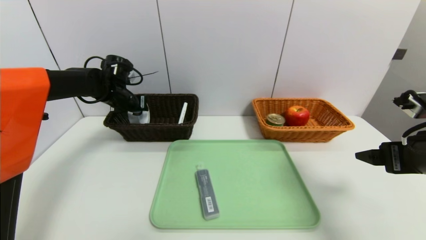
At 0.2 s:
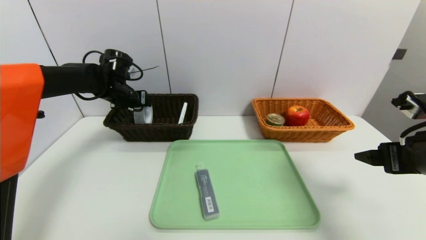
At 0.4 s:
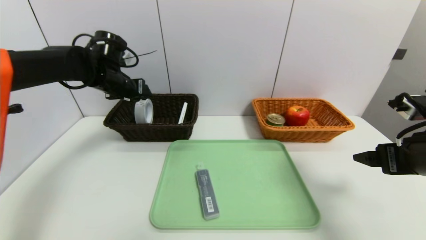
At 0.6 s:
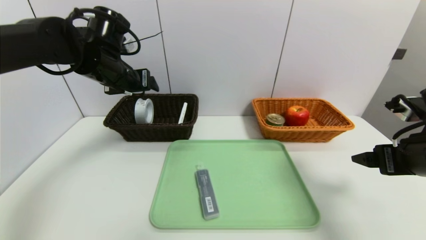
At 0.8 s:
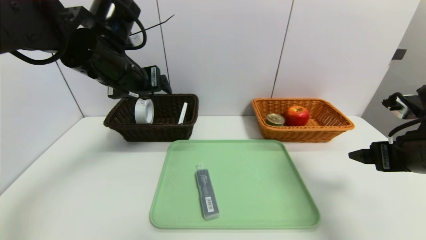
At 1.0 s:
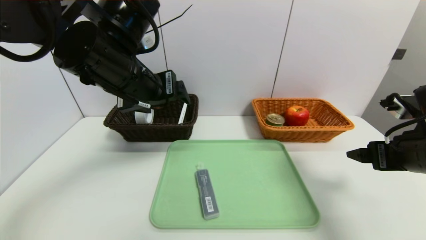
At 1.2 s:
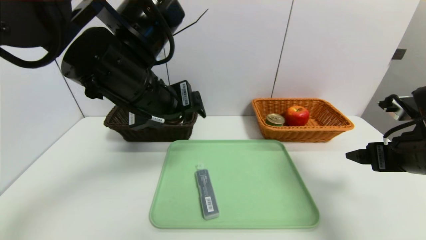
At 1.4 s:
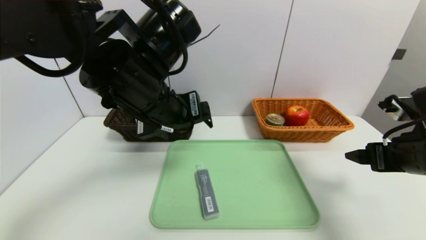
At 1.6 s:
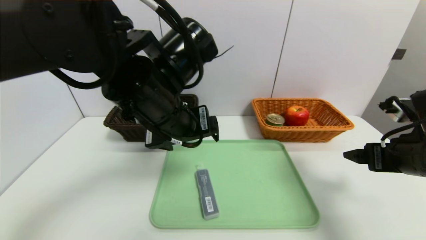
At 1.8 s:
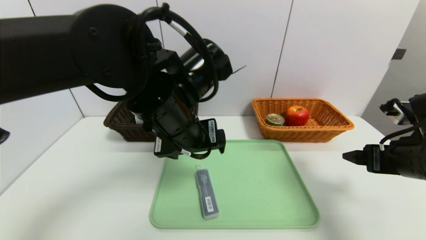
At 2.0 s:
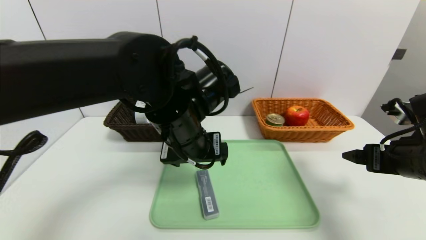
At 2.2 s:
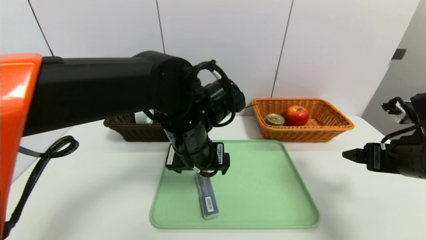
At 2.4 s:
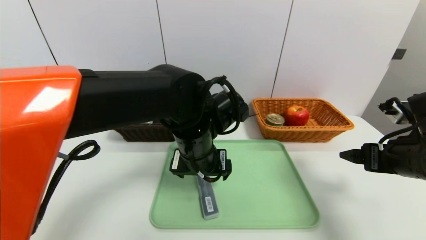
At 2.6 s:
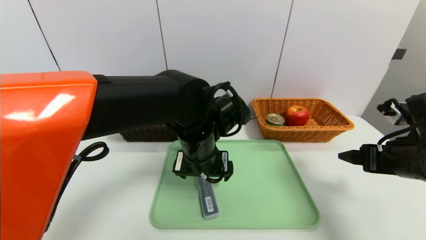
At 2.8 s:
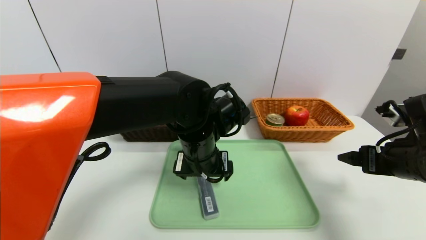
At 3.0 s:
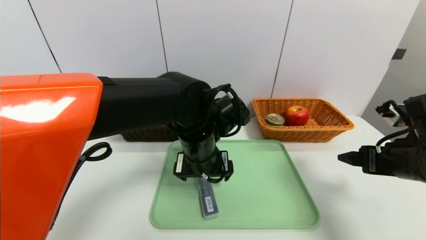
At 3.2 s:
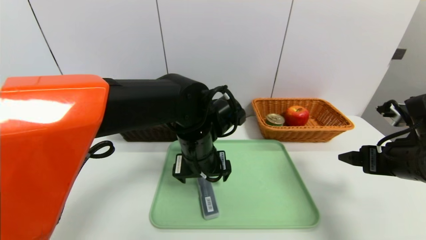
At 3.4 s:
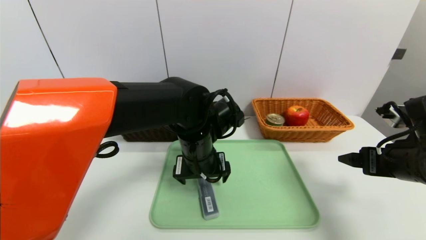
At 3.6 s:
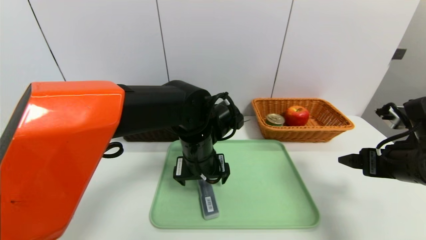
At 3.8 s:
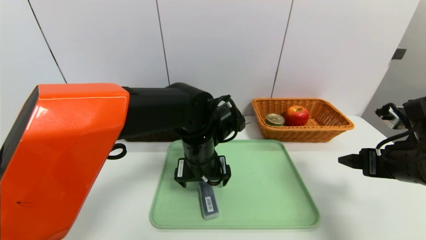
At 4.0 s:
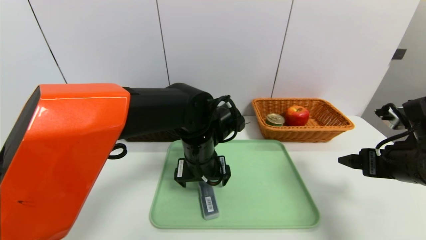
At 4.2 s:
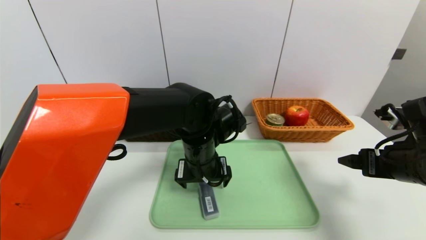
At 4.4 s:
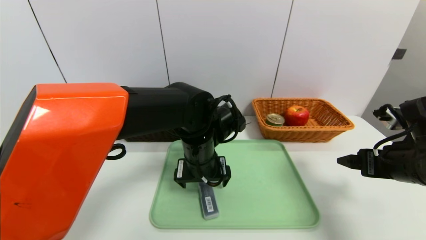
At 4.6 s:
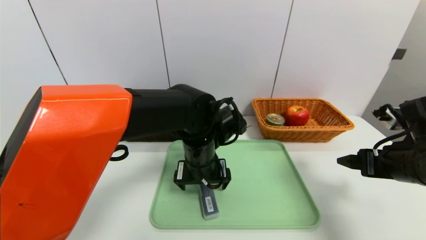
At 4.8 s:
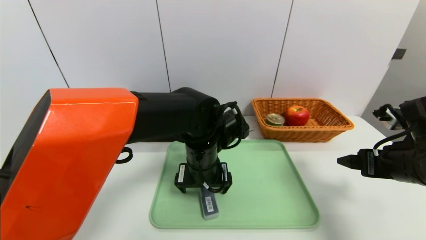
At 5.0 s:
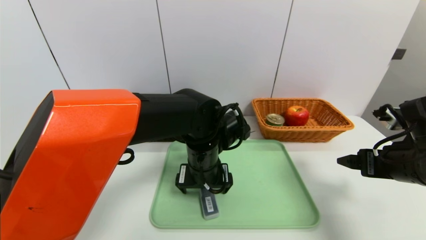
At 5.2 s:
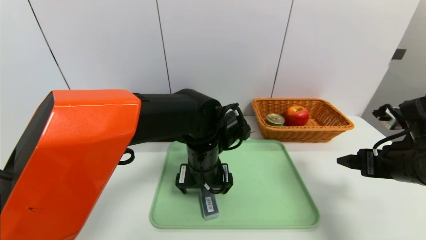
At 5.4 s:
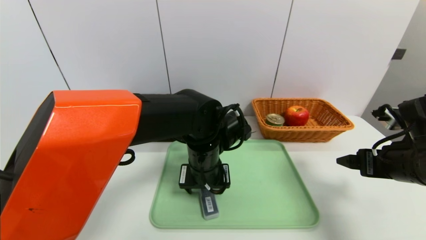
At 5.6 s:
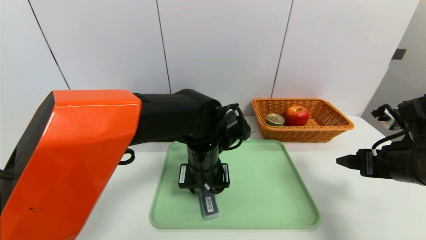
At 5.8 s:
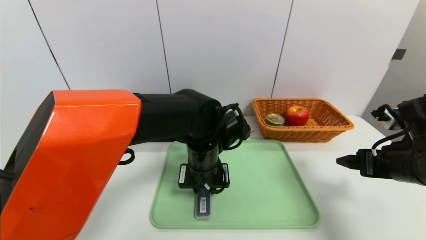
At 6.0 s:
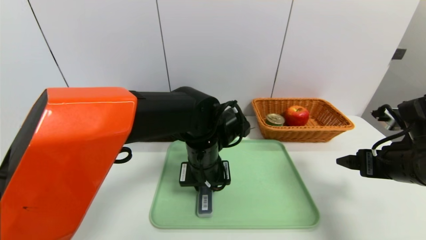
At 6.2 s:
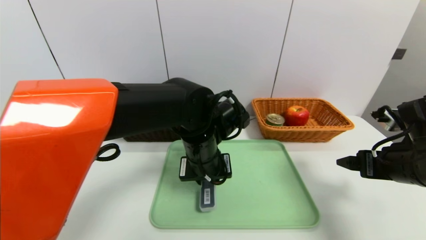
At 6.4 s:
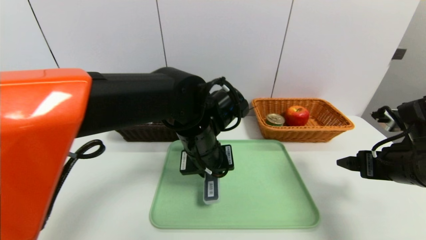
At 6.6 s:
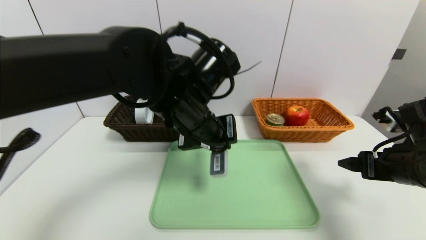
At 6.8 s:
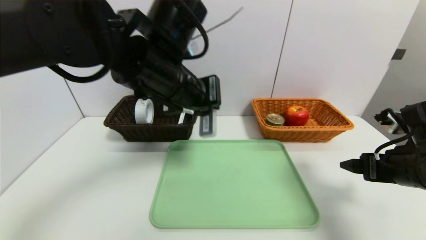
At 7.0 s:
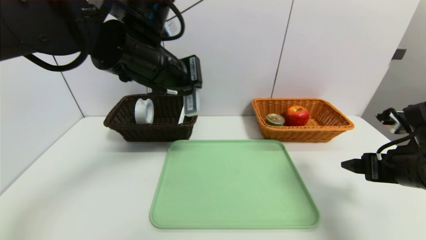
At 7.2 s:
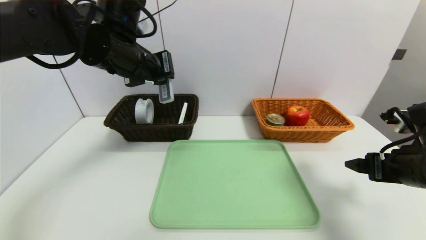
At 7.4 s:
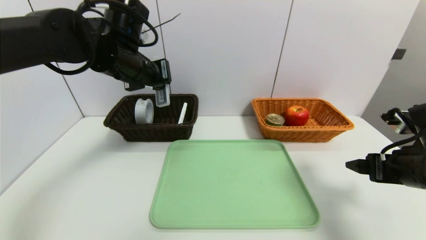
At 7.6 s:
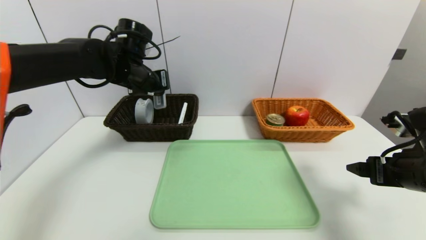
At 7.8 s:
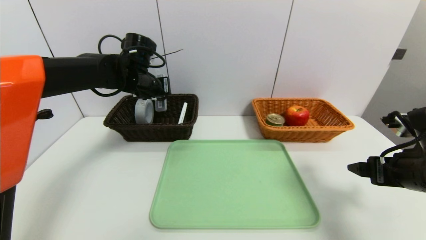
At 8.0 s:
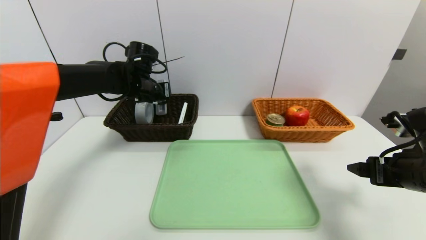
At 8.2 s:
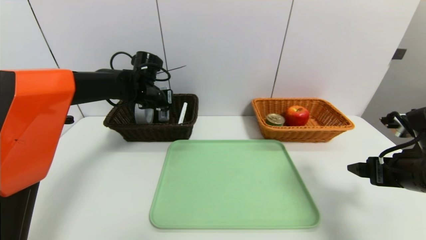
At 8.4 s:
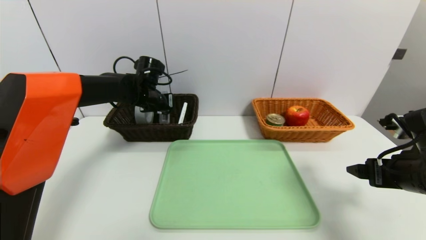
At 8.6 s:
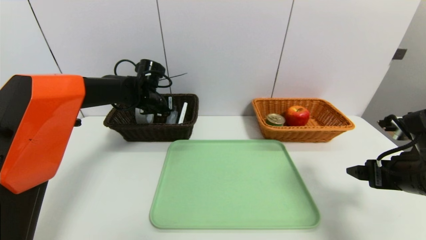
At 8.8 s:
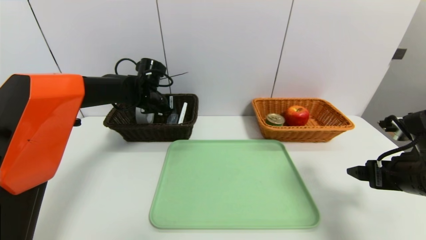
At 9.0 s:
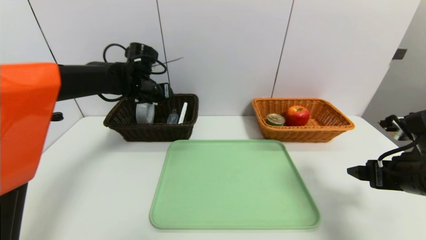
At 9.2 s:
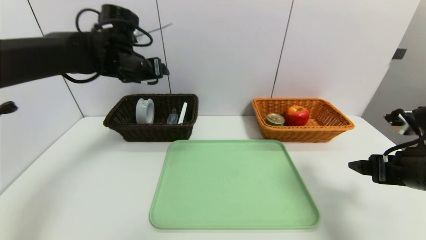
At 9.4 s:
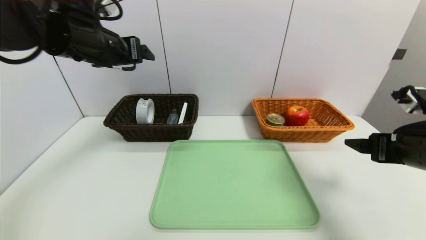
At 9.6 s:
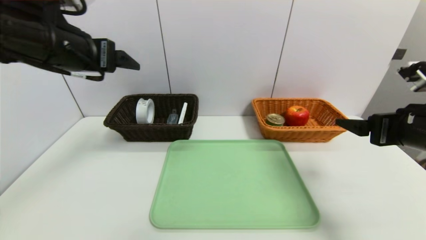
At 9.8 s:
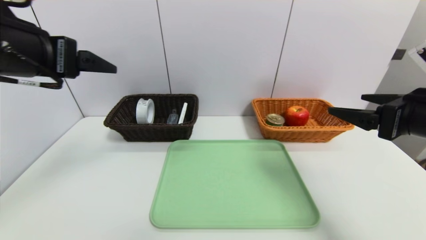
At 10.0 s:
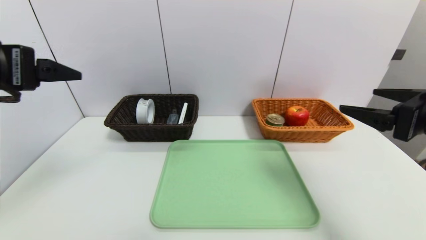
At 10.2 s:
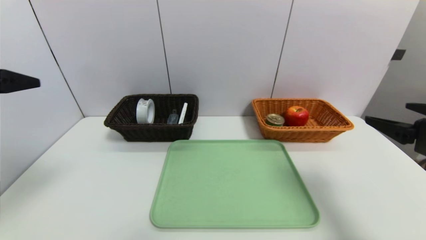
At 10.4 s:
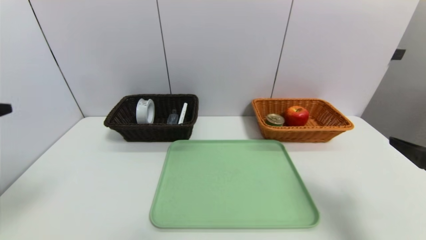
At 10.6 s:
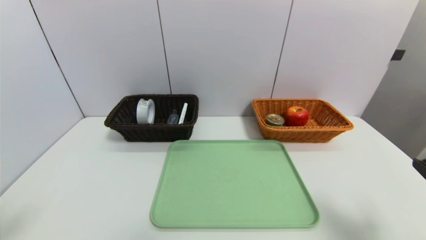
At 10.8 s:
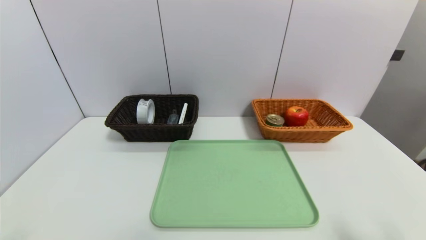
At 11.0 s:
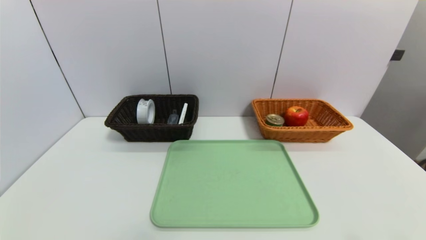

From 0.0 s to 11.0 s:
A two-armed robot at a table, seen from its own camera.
Task of the whole recording: place the food in the right basket with the right gripper, and place the non food items in the left basket with the left gripper.
Step, from 0.6 s to 9.0 s: Grasp the compass and put it in the left basket.
From 0.0 s to 1.6 s: The left gripper shifts approximately 30 cm backward, to the right and upward, and opens.
From 1.6 s to 3.2 s: The left gripper travels downward by about 10 cm.
From 3.2 s to 4.8 s: The grippers move only a little.
From 4.8 s to 6.2 s: The left gripper closes its fingers.
From 6.2 s to 7.8 s: The left gripper is displaced to the left, forward and upward by roughly 25 cm.
From 7.8 s to 9.4 s: The left gripper travels backward and upward by roughly 15 cm, and opens.
From 9.4 s to 11.0 s: The left gripper goes roughly 40 cm backward and downward. Meanwhile the right gripper goes roughly 20 cm backward and downward.

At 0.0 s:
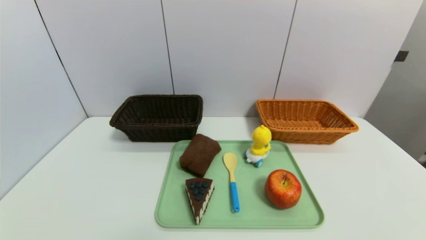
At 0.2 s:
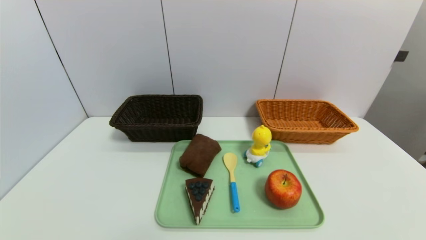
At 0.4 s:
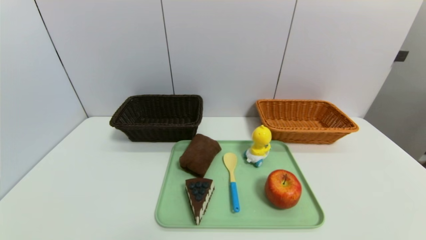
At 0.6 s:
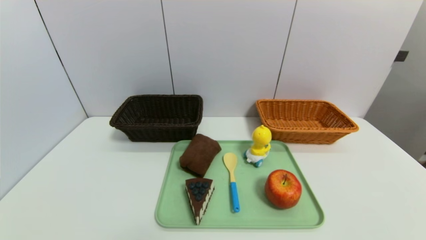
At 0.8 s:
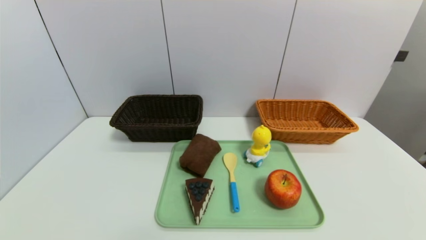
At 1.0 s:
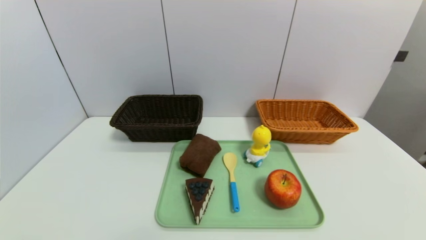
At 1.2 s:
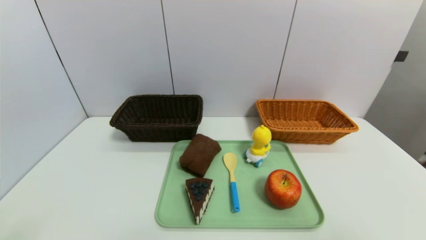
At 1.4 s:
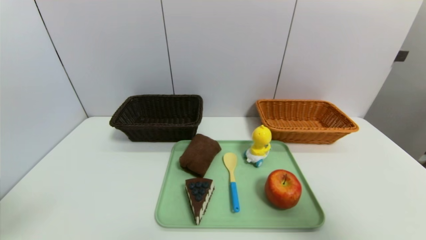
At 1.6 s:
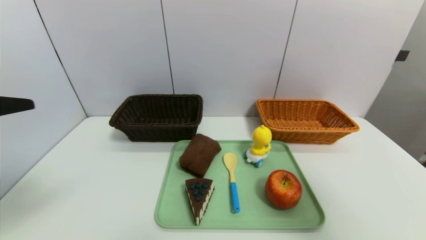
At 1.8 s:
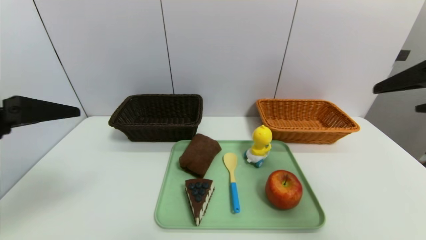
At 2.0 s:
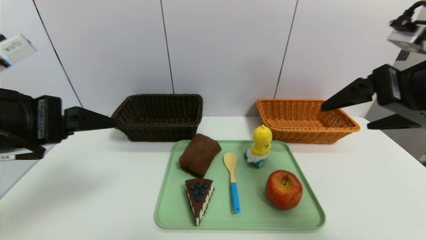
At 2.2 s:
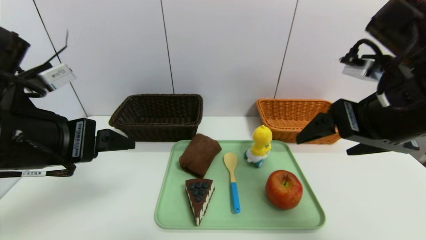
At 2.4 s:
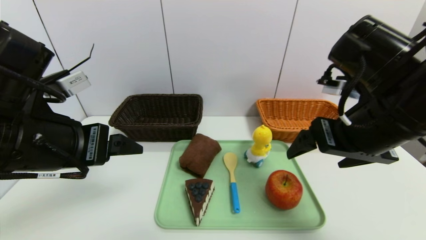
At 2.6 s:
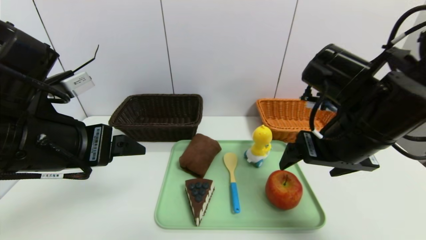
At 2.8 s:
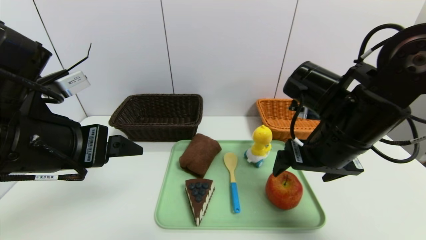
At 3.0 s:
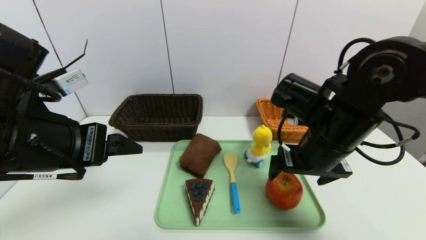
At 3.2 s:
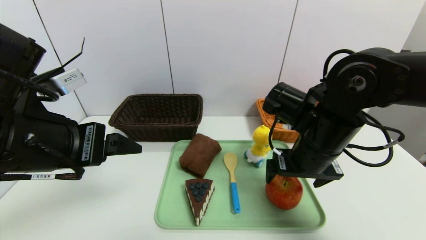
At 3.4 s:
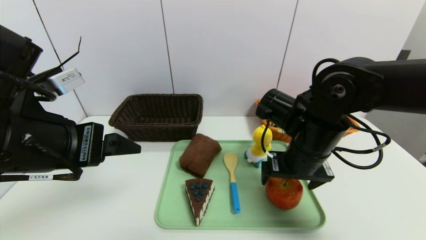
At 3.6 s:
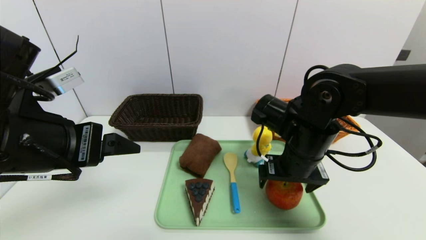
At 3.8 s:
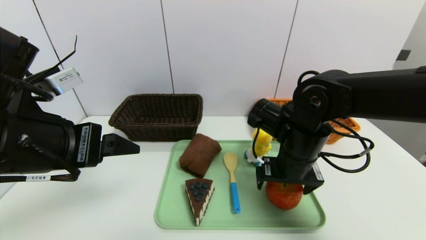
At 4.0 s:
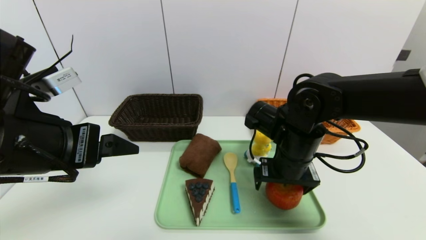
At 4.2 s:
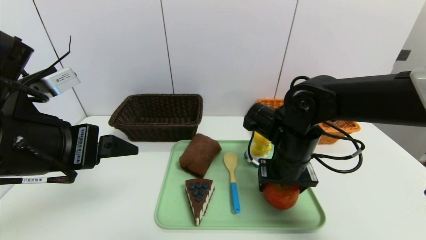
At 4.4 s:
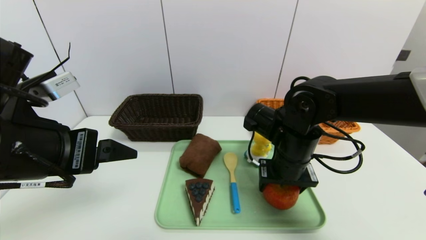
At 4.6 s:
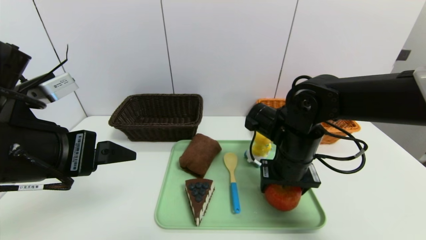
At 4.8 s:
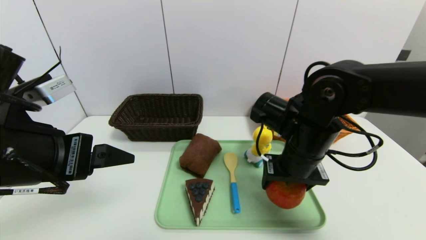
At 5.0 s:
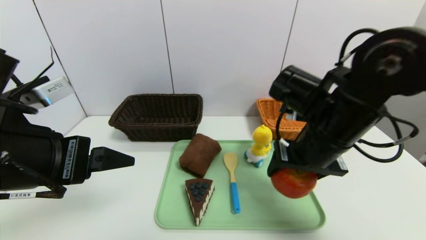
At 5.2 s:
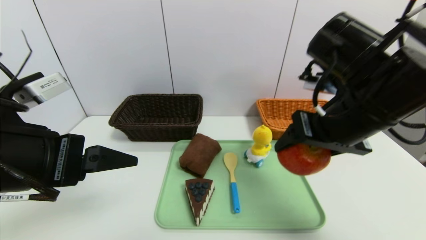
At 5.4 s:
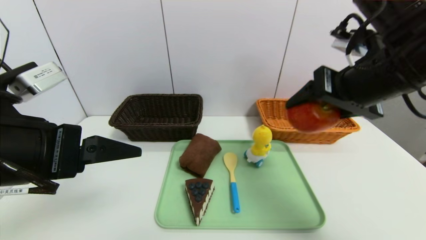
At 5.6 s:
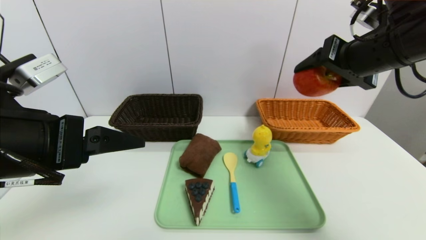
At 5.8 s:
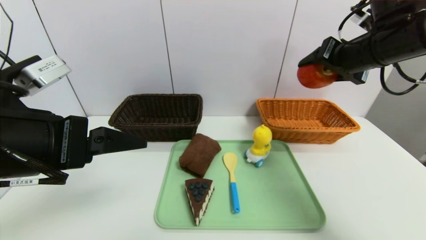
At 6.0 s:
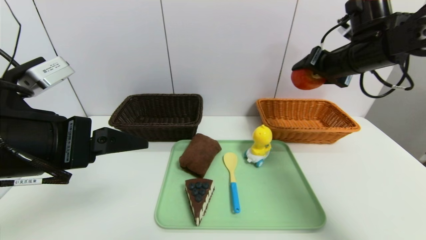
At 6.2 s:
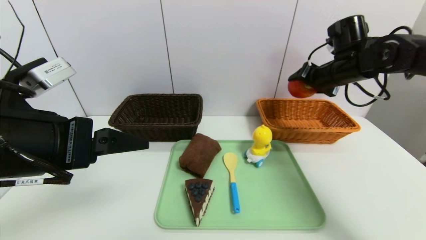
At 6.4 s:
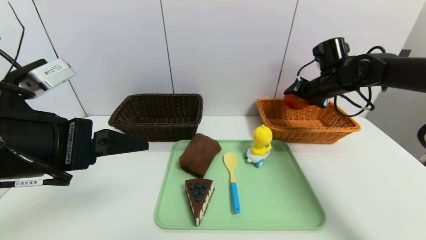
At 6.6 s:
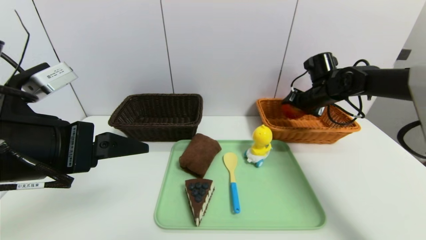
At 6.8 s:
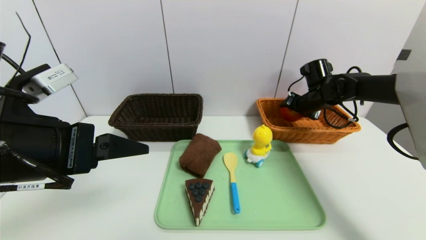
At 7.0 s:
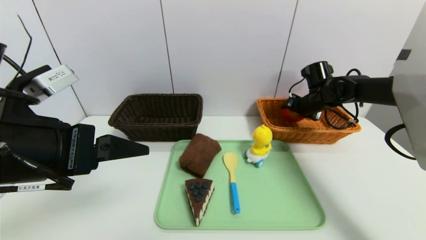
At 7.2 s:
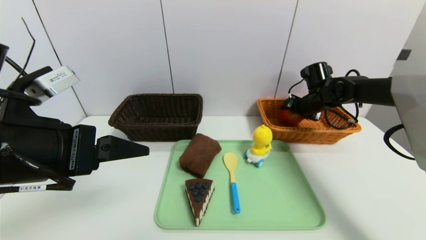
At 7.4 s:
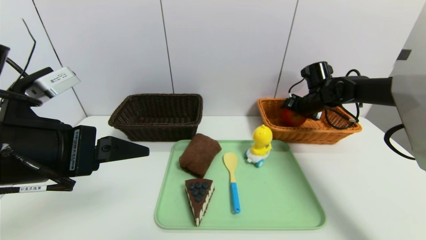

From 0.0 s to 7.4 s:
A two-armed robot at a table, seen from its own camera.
Task of the whole recording: place the food in the right basket with the right gripper, and place the non food items in the left basket with the left gripper.
From 0.0 s to 1.4 s: The grippers both shift upward by about 30 cm.
From 1.4 s to 3.0 s: The right gripper is displaced forward, to the left and downward by some 30 cm; the left gripper is displaced forward and to the right by approximately 15 cm.
From 3.0 s to 4.4 s: The right gripper moves downward, approximately 5 cm, and closes up.
From 4.4 s to 6.0 s: The right gripper heads upward, to the right and forward, covering roughly 20 cm.
From 6.0 s to 7.4 s: The right gripper travels downward and forward by approximately 15 cm.
